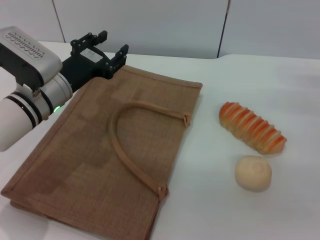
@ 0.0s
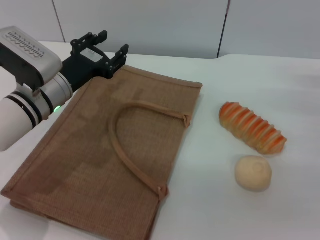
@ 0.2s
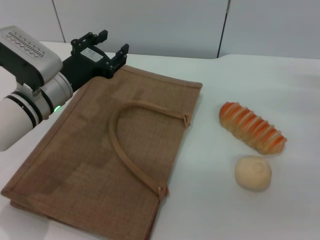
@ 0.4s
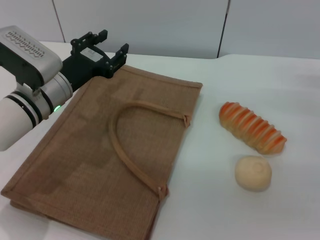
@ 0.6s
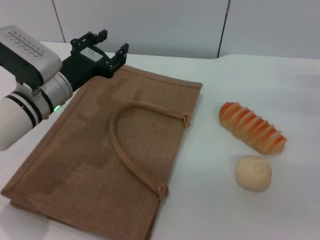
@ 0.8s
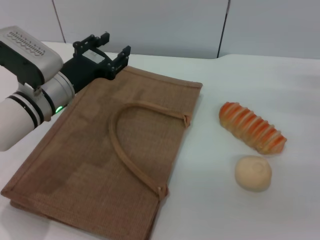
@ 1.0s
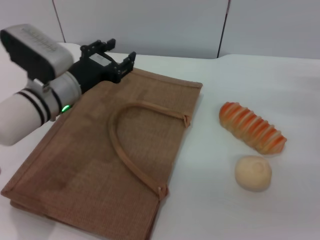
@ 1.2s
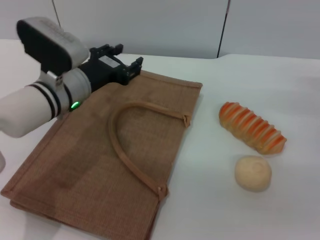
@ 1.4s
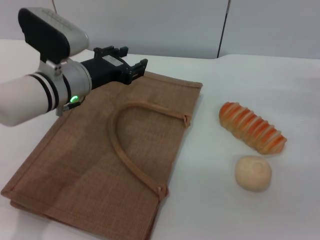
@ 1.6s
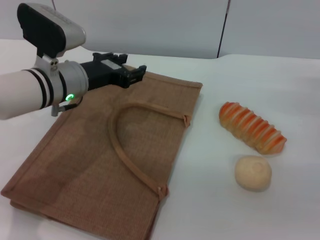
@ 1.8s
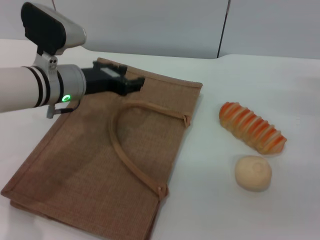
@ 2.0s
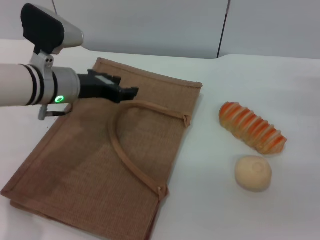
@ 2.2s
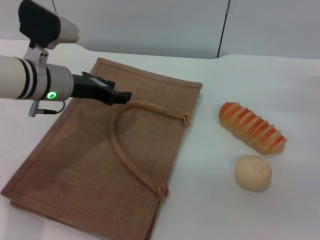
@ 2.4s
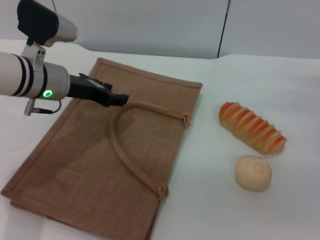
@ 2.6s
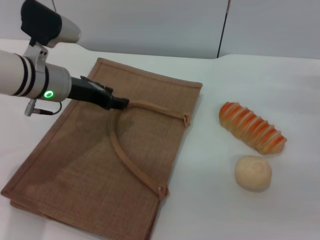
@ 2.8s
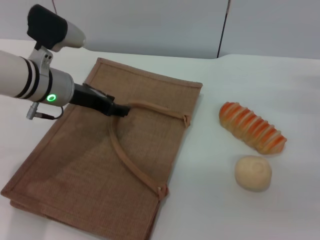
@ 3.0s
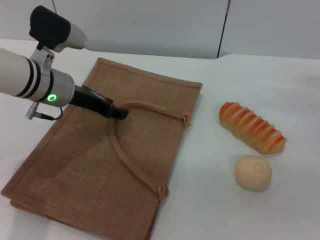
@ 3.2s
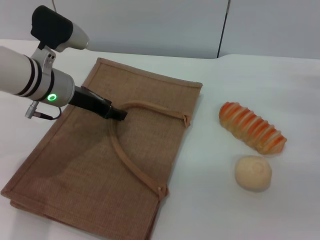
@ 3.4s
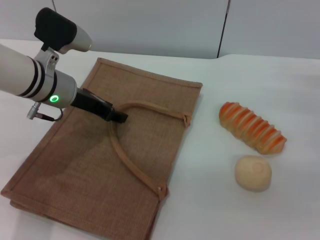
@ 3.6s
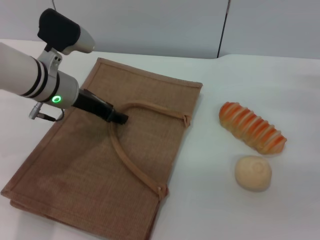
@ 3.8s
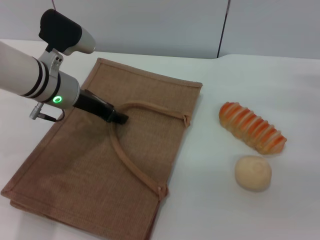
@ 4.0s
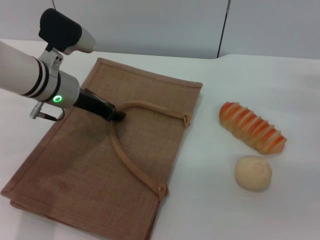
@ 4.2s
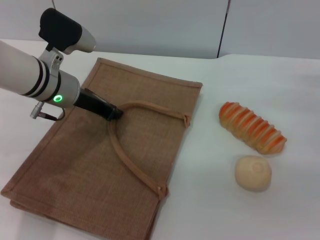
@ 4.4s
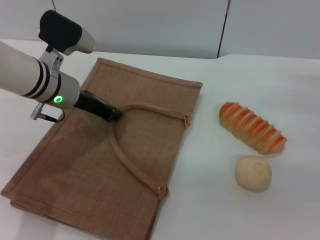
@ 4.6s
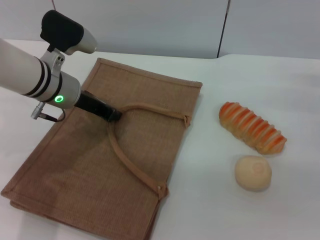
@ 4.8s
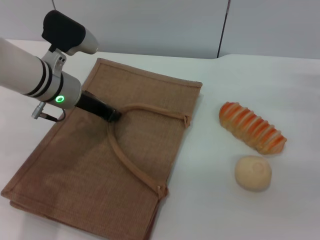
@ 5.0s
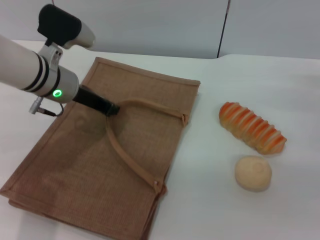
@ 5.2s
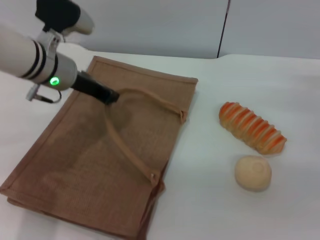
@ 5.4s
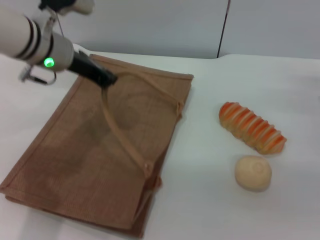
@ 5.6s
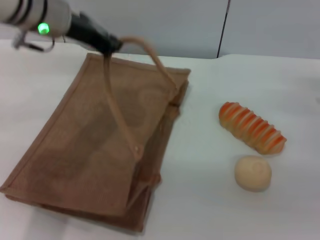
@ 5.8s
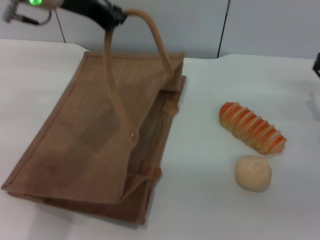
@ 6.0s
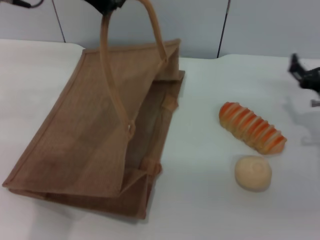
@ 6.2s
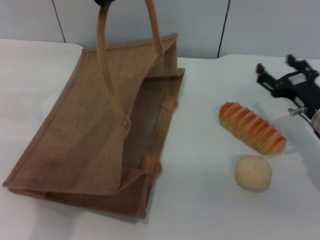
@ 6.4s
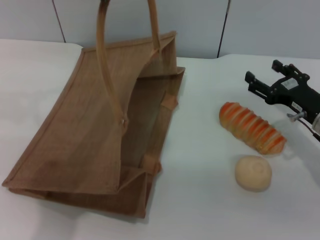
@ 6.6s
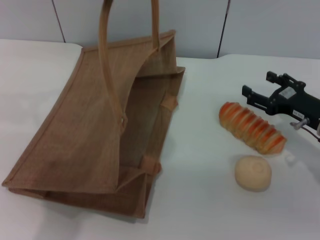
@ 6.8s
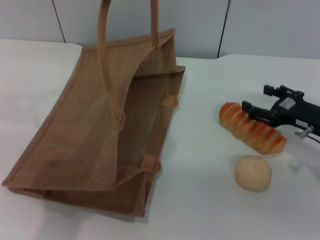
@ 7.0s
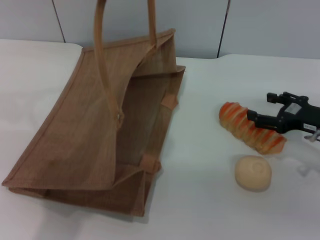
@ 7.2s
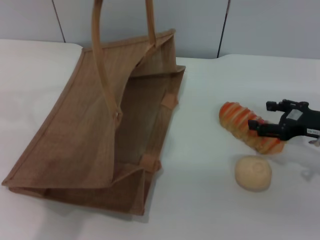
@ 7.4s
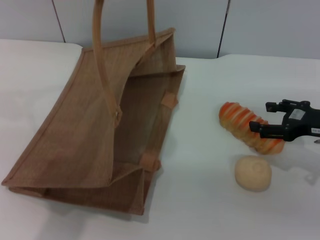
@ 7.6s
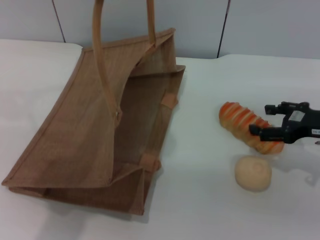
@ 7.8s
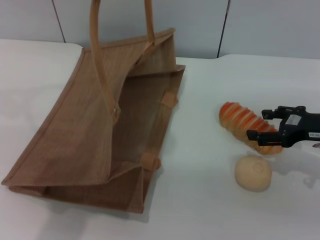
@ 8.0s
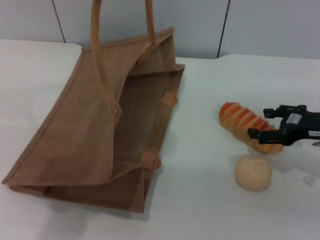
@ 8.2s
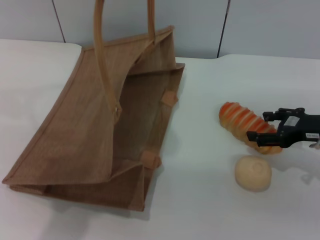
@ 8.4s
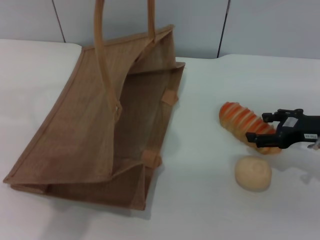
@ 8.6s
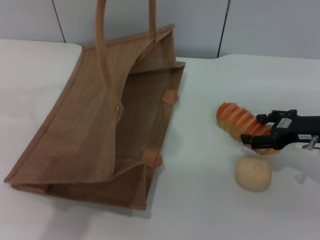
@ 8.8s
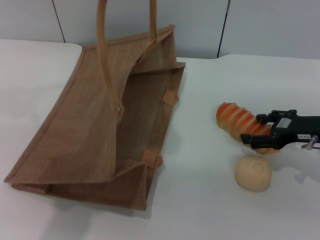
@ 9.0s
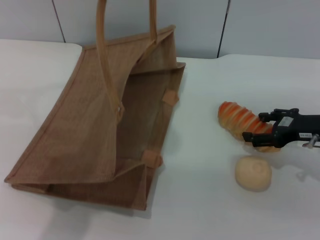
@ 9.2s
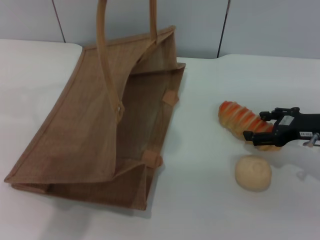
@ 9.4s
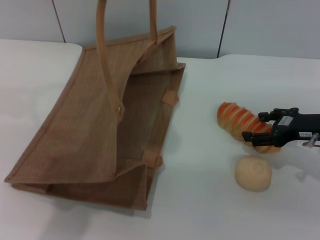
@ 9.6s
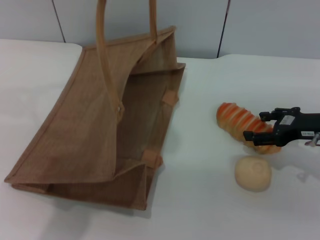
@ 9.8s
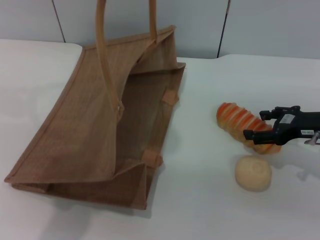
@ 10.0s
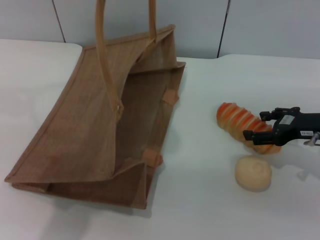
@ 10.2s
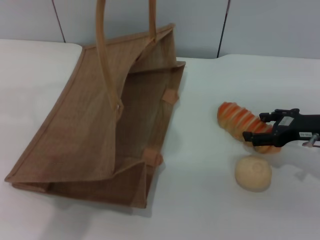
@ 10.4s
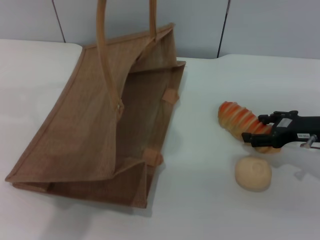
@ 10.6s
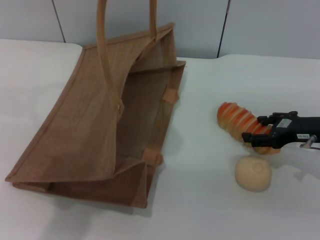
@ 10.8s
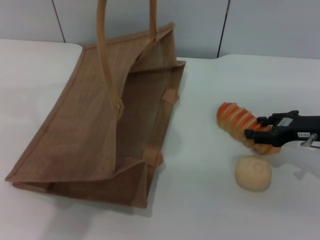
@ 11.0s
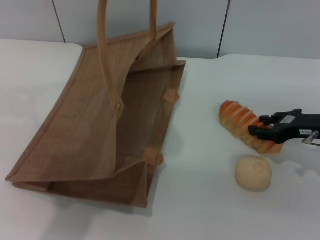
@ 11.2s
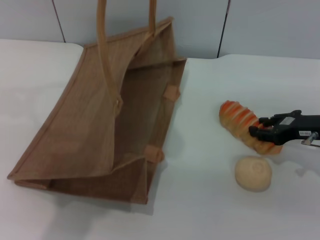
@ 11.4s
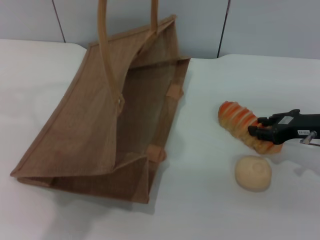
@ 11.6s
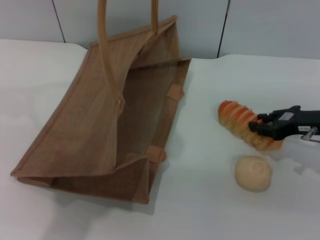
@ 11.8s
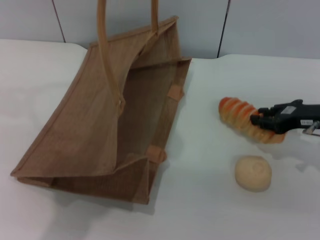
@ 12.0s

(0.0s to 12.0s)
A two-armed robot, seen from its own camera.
Task of the whole recording: pick up the bread and egg yolk pastry from the table and place it in the brown handbag.
Step, 0.0s - 6.0s: Lift the woven bag with the left gripper to open it.
0.0s - 1.6s: The grippers stay close to where they were, moving slightly.
3.0s - 4.4s: There are only small adjustments of the grippers.
4.4s - 6.0s: The left gripper heads upward, covering roughly 15 cm.
6.0s - 7.6s: The left gripper goes about 10 cm upward.
7.6s - 9.0s: The grippers stay close to where they were, moving slightly.
9.0s - 10.4s: The two grippers keep their place.
10.4s - 12.0s: The right gripper closes up.

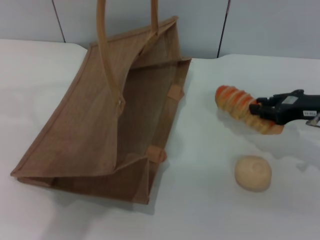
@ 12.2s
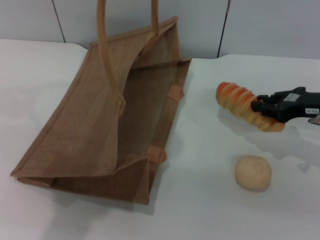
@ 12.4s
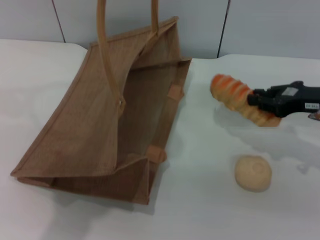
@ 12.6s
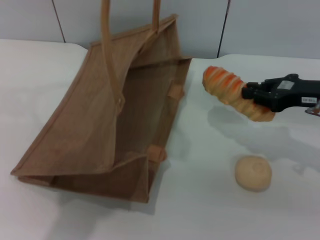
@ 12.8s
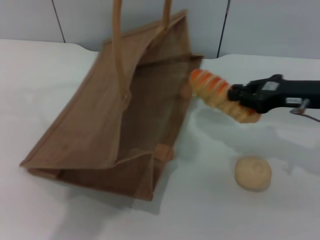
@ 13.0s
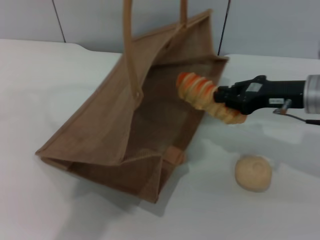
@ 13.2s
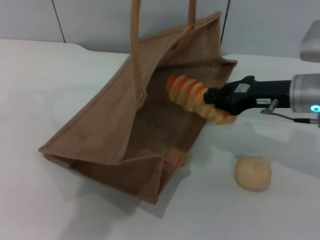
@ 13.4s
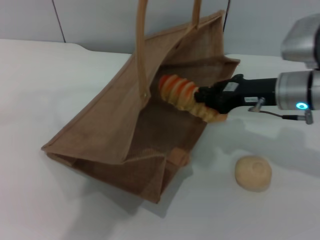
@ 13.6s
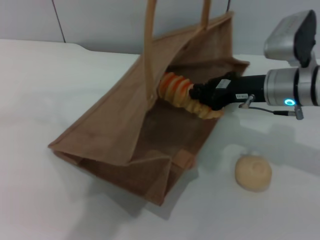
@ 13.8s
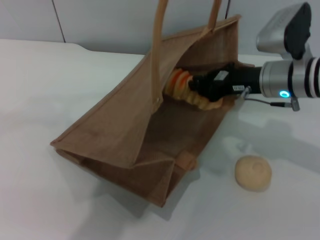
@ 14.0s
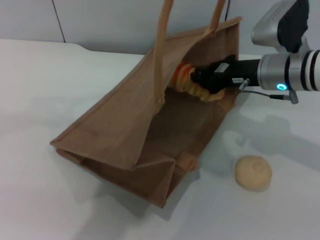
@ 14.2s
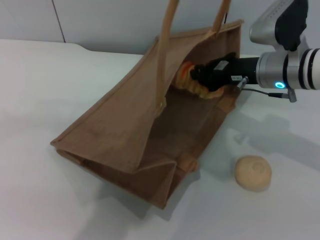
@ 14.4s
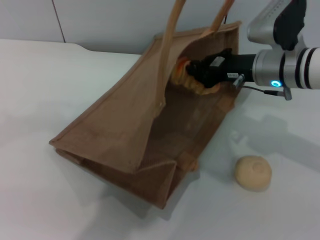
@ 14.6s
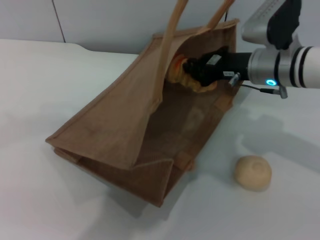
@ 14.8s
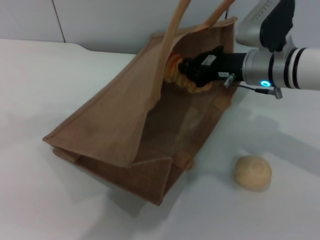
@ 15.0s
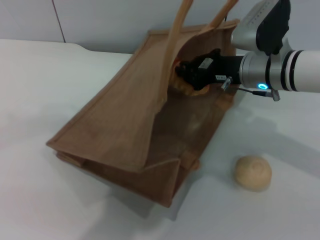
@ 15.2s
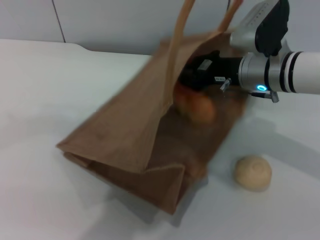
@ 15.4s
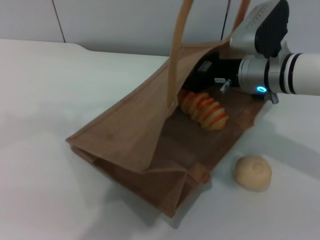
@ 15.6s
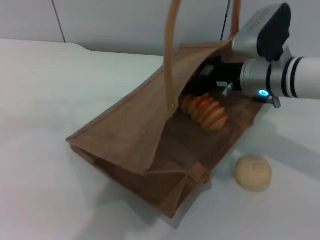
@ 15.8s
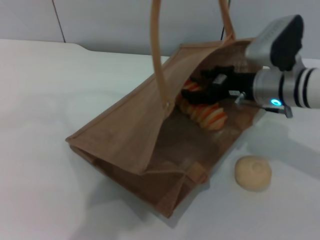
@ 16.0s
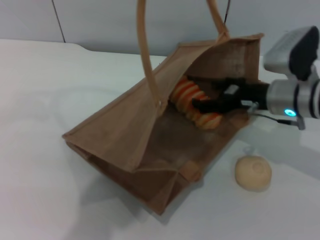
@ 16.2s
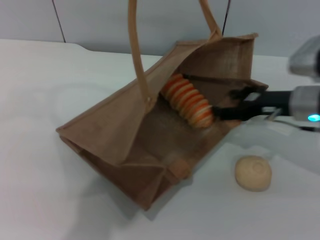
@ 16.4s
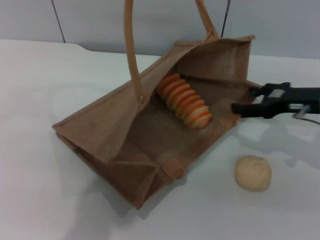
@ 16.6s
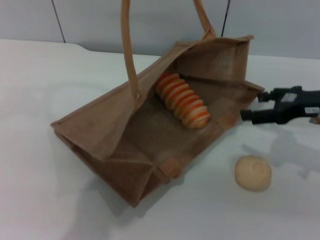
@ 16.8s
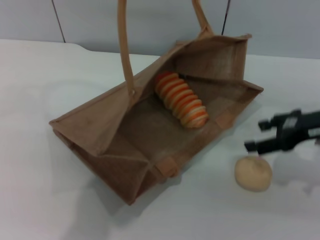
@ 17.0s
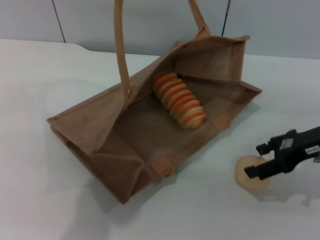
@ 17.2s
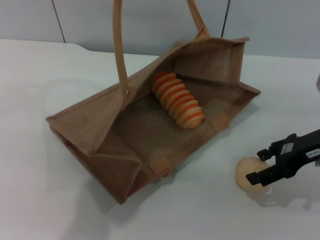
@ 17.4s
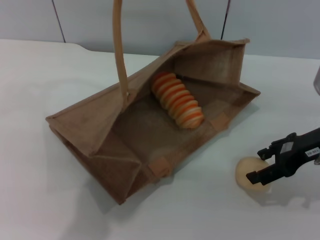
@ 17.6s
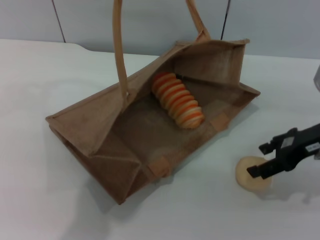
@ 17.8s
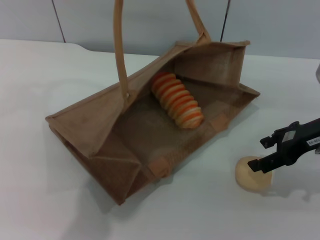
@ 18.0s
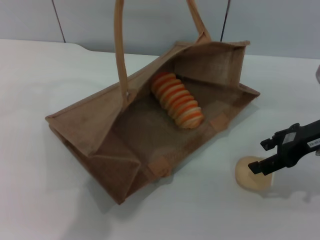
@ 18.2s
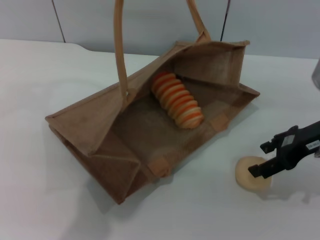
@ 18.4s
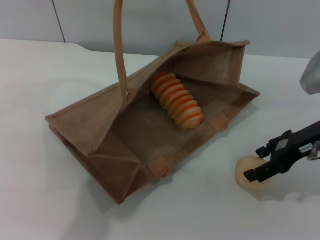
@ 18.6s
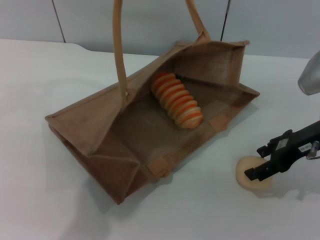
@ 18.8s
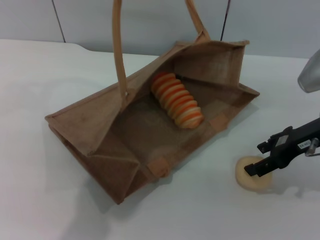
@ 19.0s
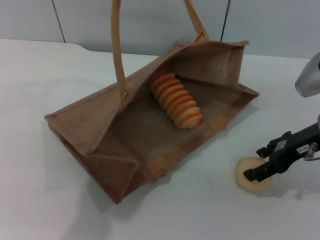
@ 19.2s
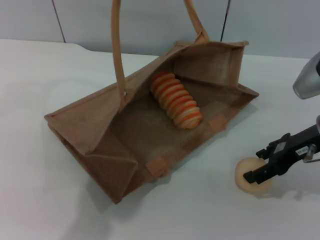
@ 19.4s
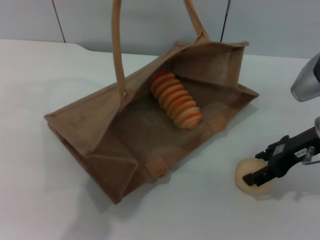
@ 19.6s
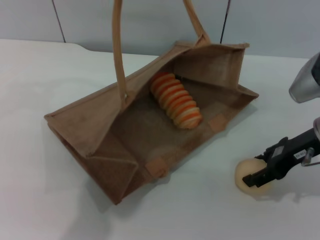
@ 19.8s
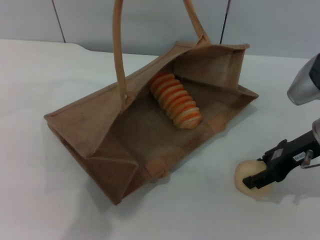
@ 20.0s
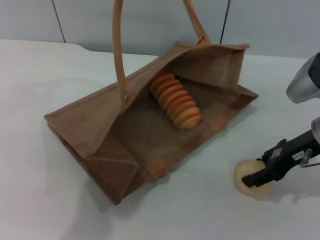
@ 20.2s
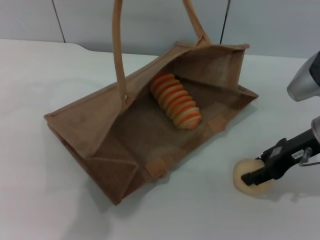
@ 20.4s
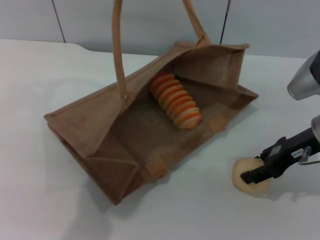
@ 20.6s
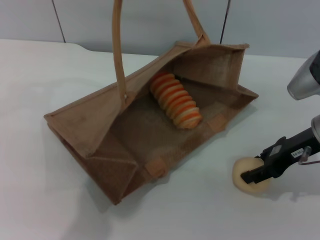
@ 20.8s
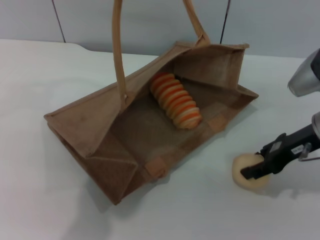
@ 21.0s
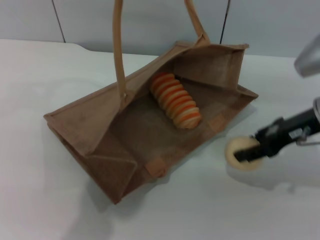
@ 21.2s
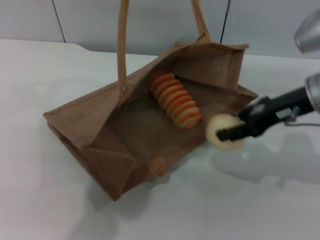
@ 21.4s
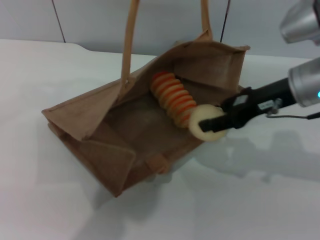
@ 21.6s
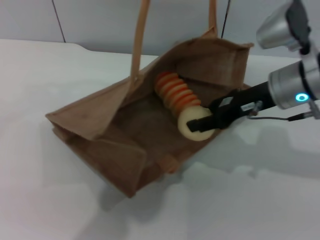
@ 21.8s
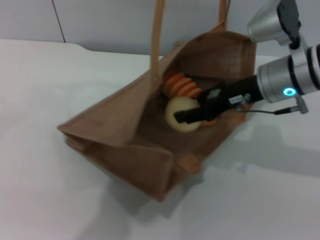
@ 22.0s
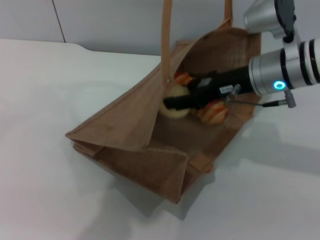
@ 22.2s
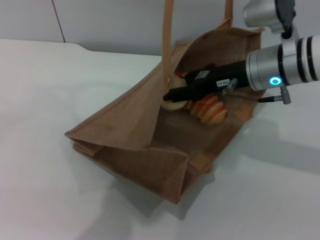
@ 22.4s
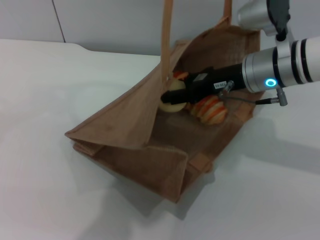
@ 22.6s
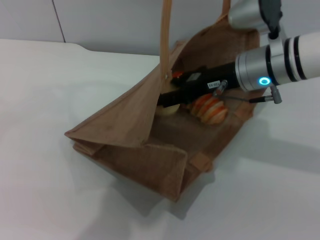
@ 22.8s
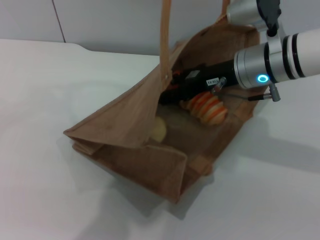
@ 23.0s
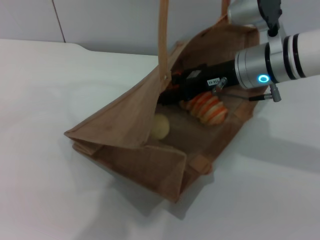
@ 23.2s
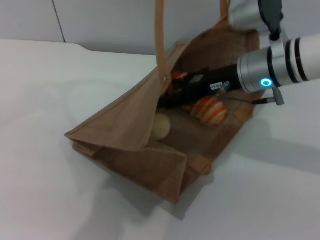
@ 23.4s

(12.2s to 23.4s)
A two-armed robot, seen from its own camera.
Task of the whole recording: pick up the bread and egg yolk pastry from the table and place it in the brown handbag.
Step, 12.6s - 16.2s: Place the bread into the woven bag with the right gripper.
Step, 16.4s - 21.2s: Pick up the egg yolk pastry with the right gripper.
Step, 21.4s - 23.2s: Place the egg yolk pastry into the woven bag with the right gripper.
12.2s - 13.8s: The right gripper moves to the left, some 10 cm, while the left gripper is displaced to the right by about 5 cm.
15.4s - 17.0s: The right gripper travels to the right and backward by roughly 15 cm, and opens up, while the left gripper goes roughly 5 cm to the left.
17.0s - 20.2s: The grippers make only small movements.
20.2s - 21.8s: The right gripper is displaced to the left by some 5 cm.
21.8s - 23.4s: The right gripper opens up.
